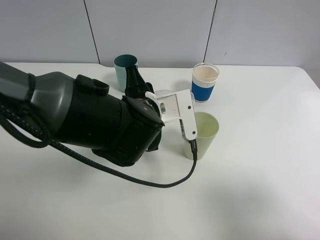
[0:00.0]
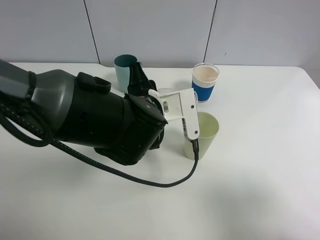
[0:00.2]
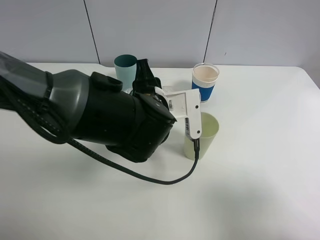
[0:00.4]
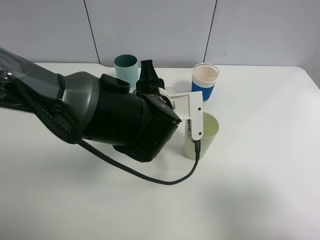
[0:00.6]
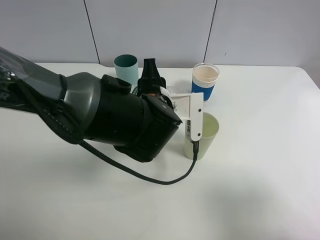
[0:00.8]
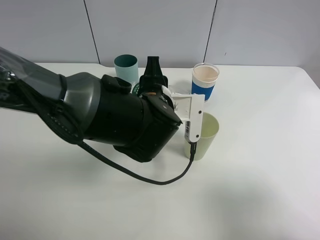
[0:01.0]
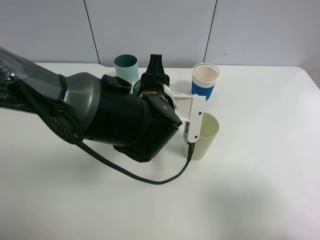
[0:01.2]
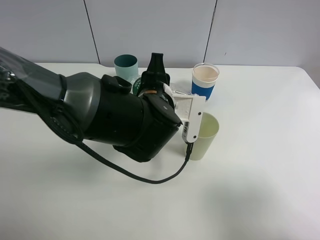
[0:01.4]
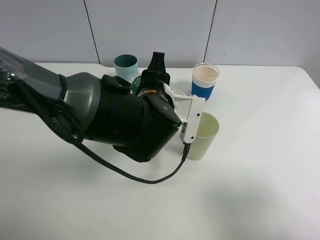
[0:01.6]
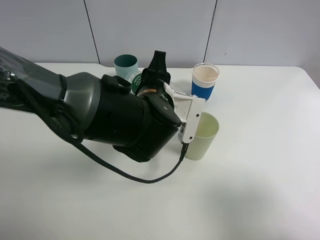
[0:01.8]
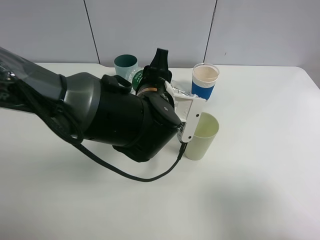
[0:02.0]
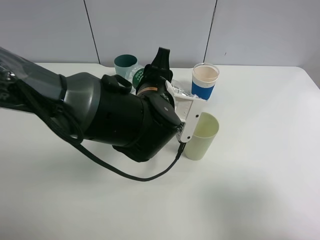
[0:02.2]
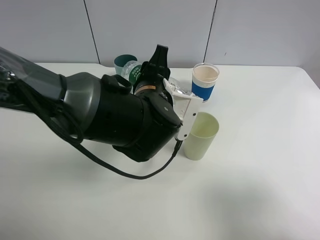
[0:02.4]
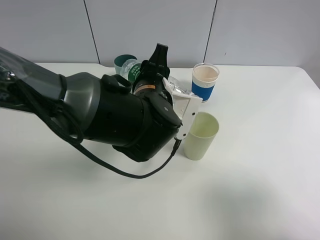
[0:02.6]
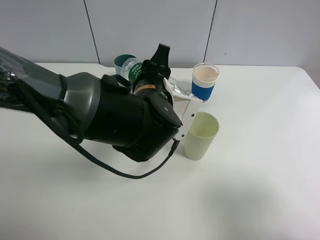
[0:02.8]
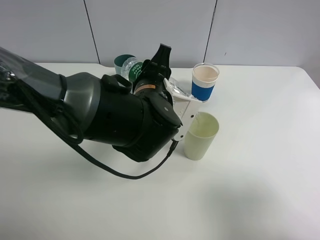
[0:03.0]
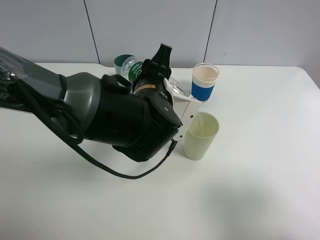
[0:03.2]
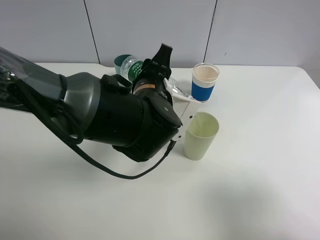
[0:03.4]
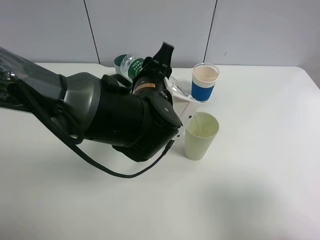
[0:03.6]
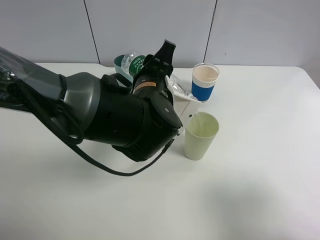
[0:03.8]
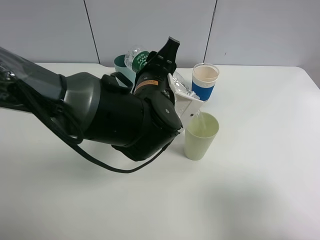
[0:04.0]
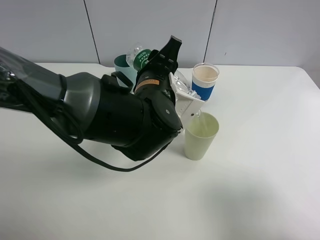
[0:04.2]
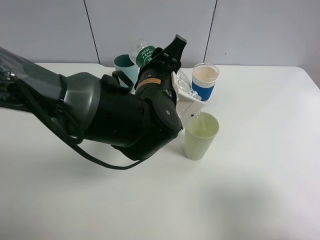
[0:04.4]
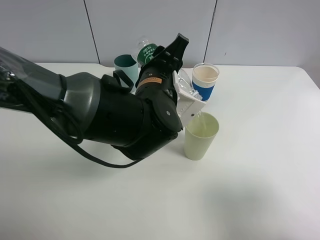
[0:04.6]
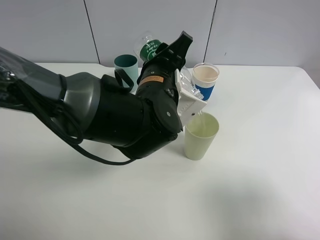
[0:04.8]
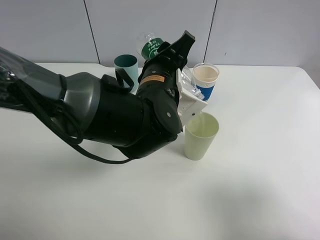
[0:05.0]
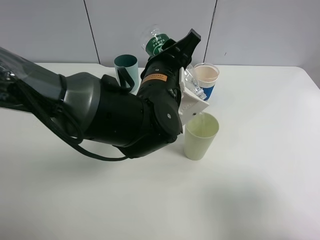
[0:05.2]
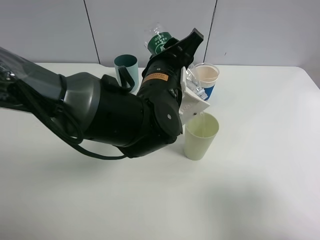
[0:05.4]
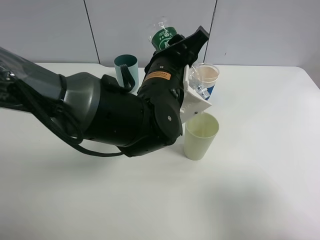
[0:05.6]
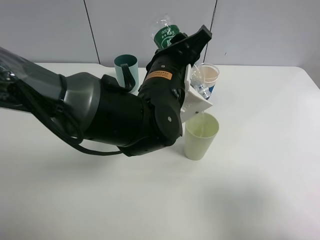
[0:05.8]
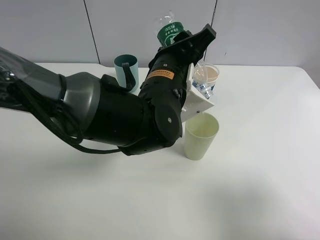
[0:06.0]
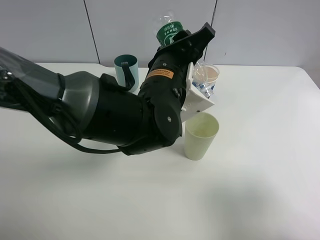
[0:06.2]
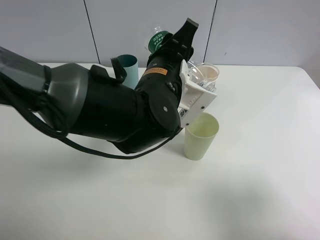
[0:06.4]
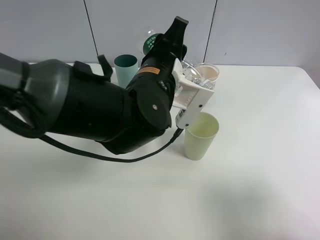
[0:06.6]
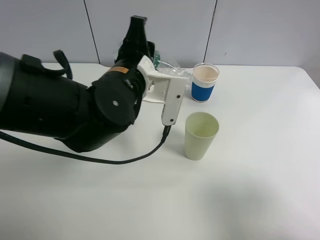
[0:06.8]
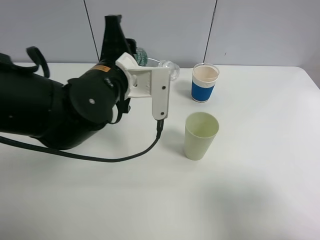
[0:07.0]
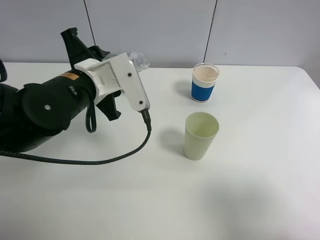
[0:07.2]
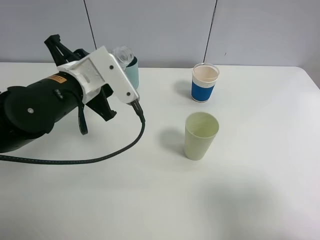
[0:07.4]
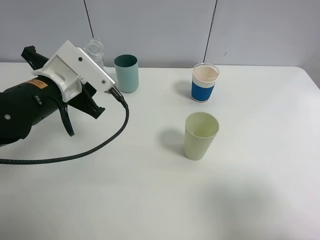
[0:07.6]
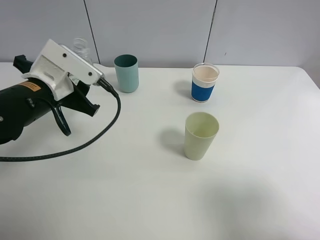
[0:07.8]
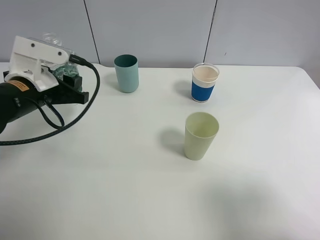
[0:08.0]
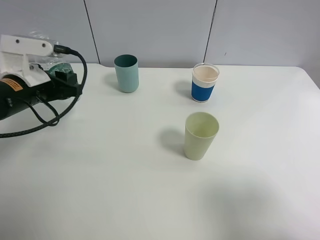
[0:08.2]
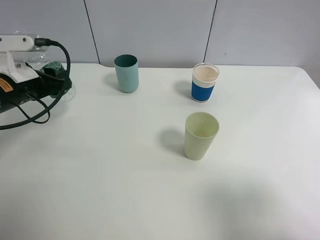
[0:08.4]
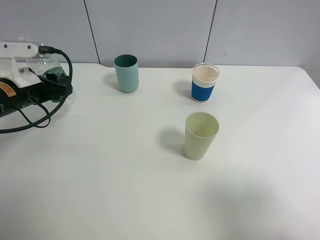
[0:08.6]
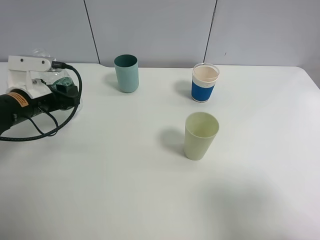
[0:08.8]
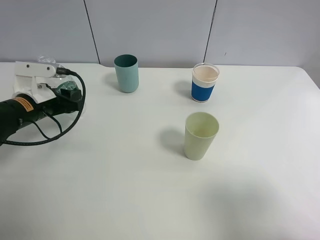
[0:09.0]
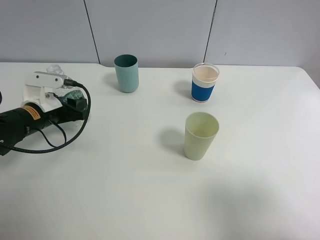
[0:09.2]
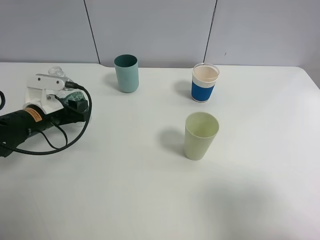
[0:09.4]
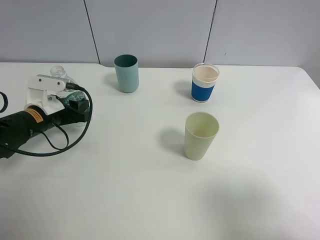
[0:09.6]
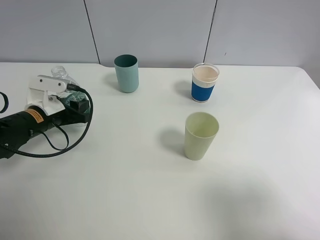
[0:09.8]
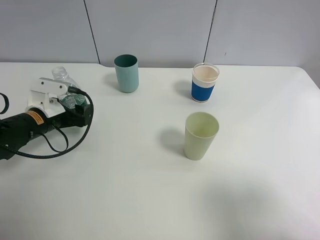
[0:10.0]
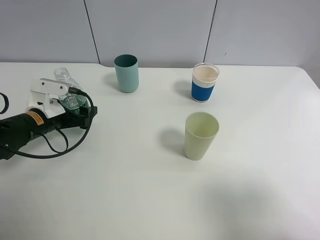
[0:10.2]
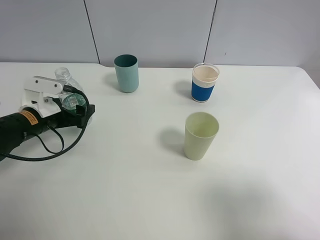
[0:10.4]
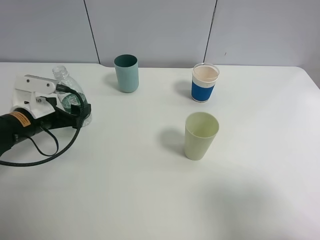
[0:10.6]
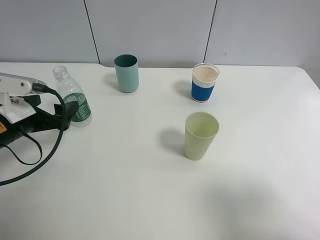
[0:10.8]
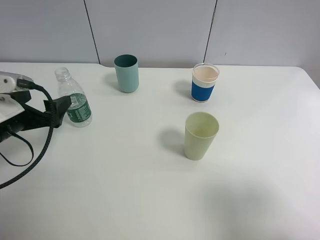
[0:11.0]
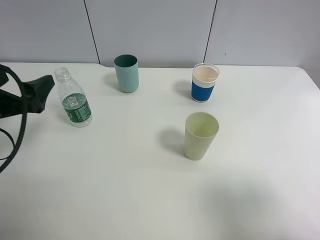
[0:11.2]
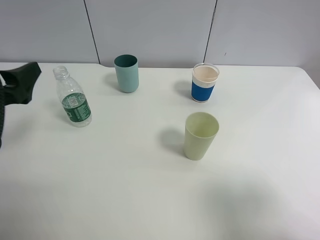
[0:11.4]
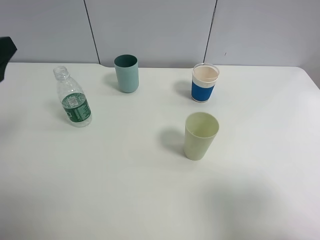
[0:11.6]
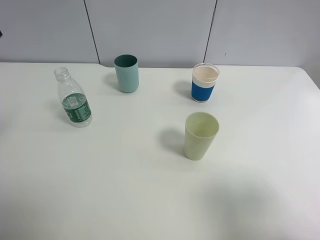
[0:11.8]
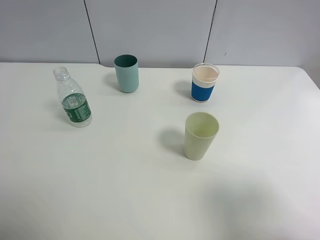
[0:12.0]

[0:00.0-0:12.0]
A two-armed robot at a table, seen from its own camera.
Task of the whole recording: use a clamp to hold the bottle of the drink, pour the beverage into a random cup, then clamp the cup containing the drink and pour the drink into another random cup.
Step, 0:00.0 to 0:06.8: Pour the water into the green plastic cup with left gripper.
Step, 0:07.0 to 0:10.8: Place the water bottle on the table with left gripper.
0:01.6 to 0:03.0: The grippers make only small movements.
0:03.0 to 0:04.4: There are only small adjustments of the grippers.
0:04.4 to 0:06.0: The grippers make only small movements.
0:06.0 to 0:07.6: The left gripper shifts roughly 20 cm to the left.
0:07.6 to 0:09.0: The left gripper travels to the left and downward by some 10 cm.
0:09.0 to 0:10.4: The left gripper opens.
0:10.4 to 0:12.0: The left gripper goes roughly 30 cm upward and backward.

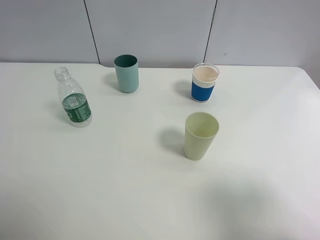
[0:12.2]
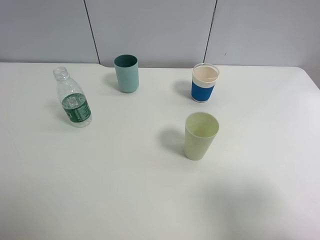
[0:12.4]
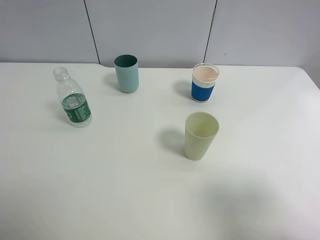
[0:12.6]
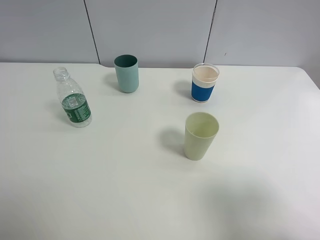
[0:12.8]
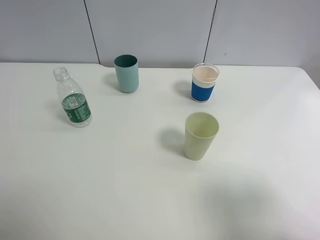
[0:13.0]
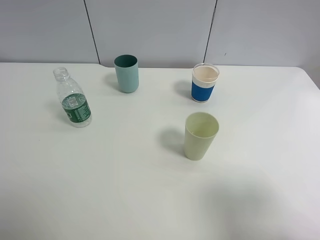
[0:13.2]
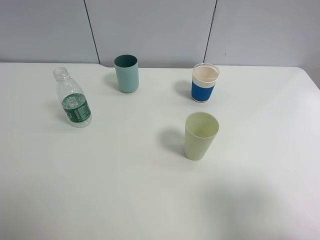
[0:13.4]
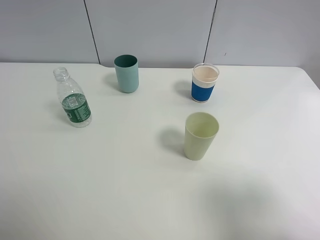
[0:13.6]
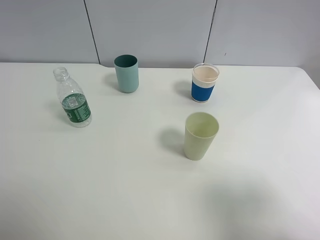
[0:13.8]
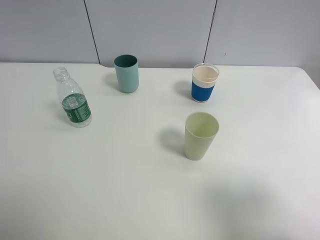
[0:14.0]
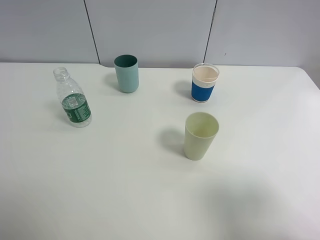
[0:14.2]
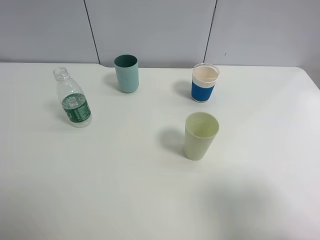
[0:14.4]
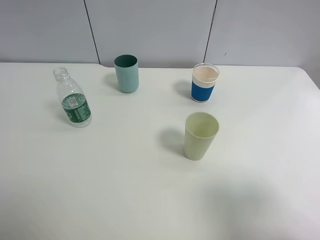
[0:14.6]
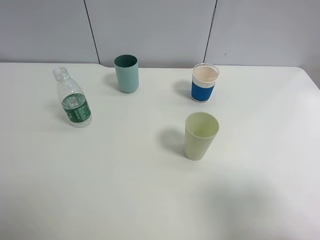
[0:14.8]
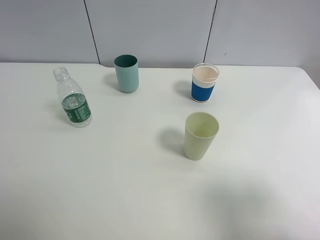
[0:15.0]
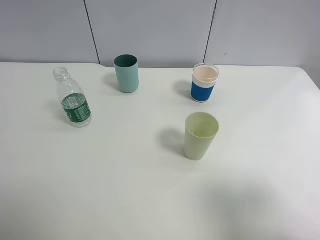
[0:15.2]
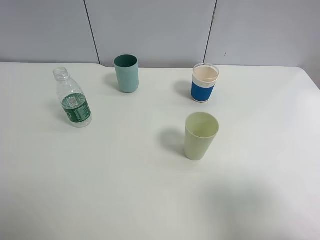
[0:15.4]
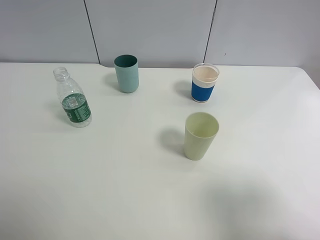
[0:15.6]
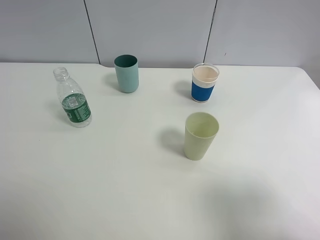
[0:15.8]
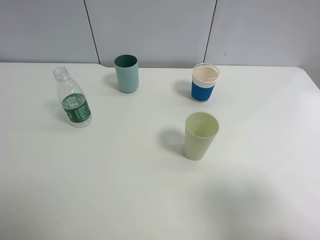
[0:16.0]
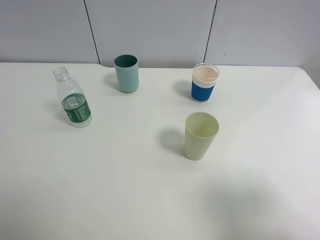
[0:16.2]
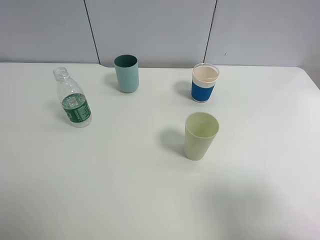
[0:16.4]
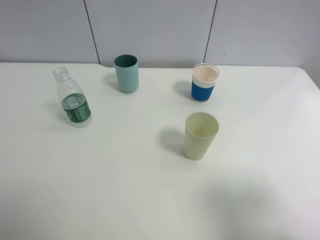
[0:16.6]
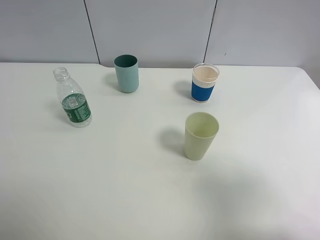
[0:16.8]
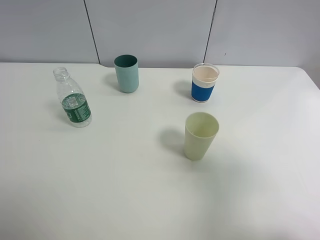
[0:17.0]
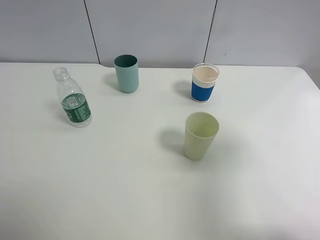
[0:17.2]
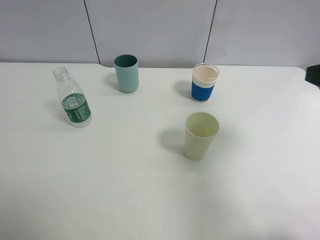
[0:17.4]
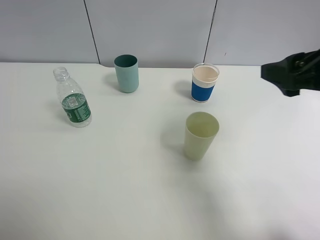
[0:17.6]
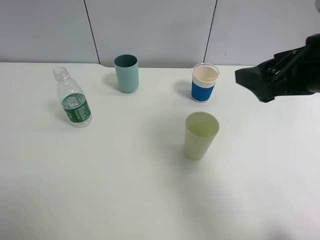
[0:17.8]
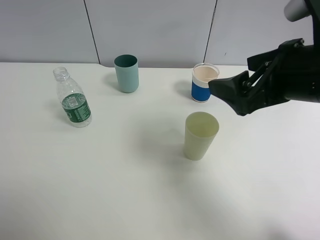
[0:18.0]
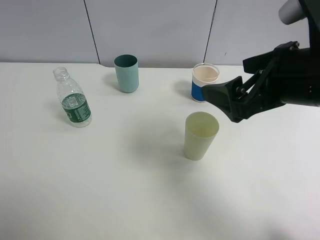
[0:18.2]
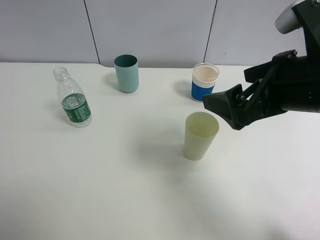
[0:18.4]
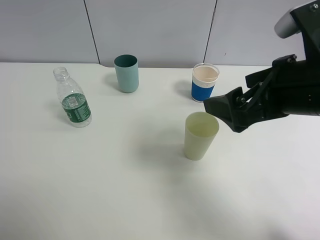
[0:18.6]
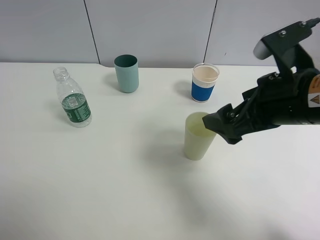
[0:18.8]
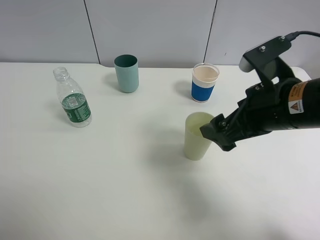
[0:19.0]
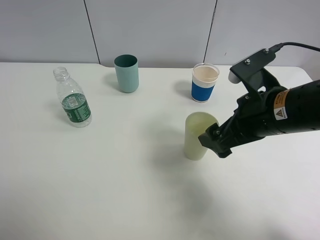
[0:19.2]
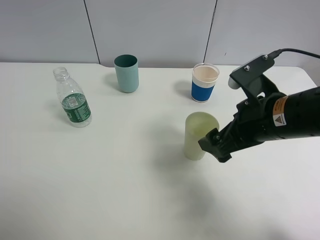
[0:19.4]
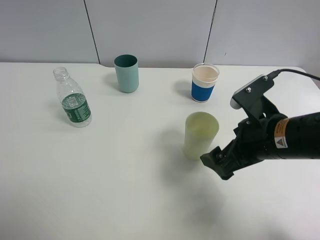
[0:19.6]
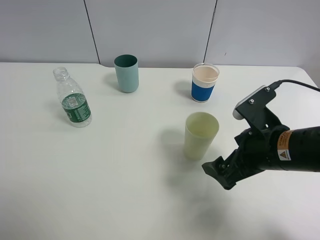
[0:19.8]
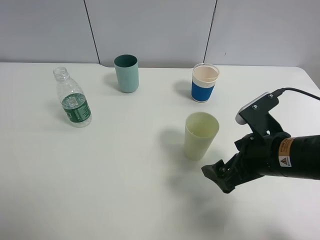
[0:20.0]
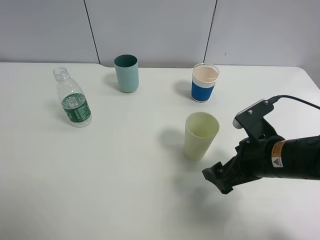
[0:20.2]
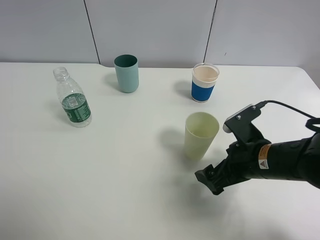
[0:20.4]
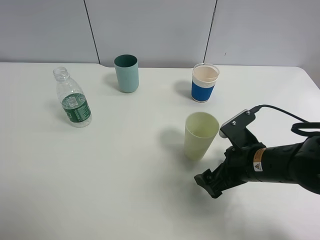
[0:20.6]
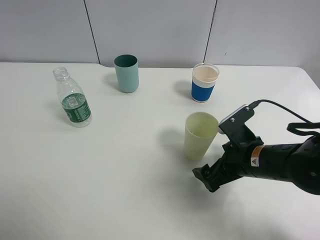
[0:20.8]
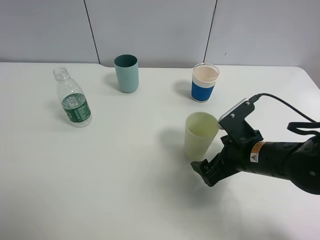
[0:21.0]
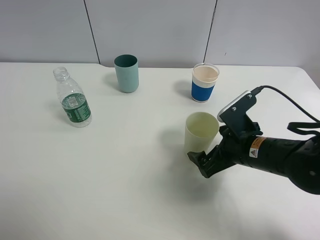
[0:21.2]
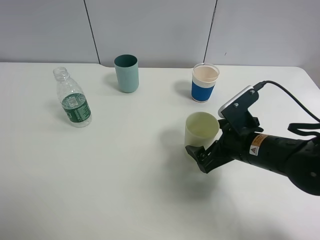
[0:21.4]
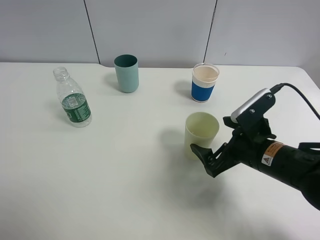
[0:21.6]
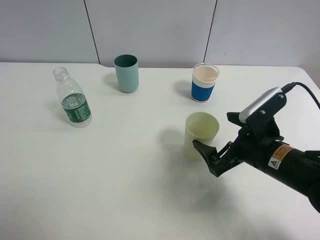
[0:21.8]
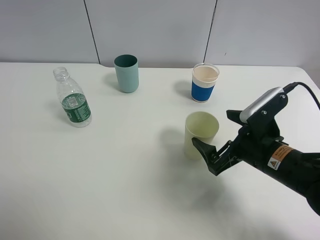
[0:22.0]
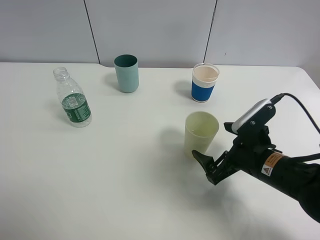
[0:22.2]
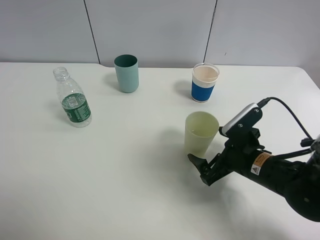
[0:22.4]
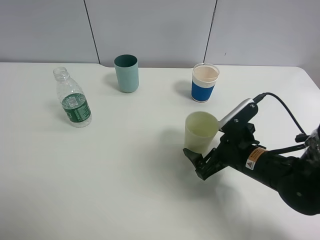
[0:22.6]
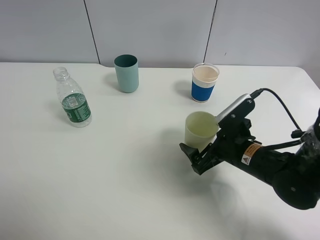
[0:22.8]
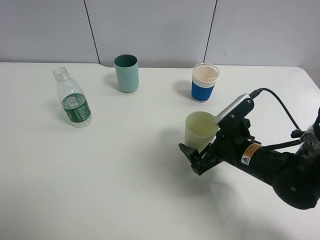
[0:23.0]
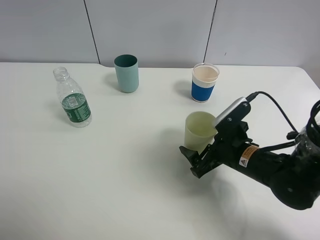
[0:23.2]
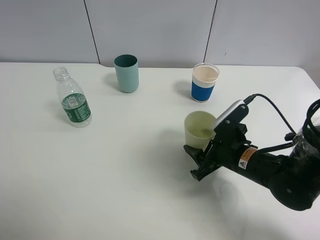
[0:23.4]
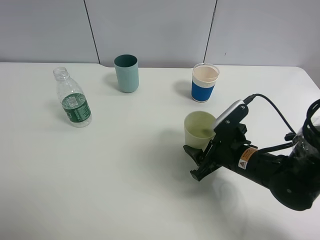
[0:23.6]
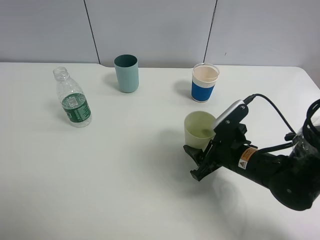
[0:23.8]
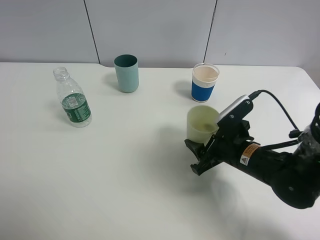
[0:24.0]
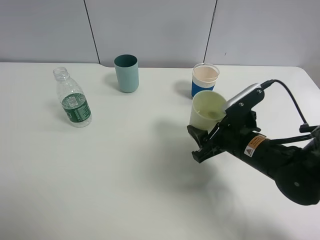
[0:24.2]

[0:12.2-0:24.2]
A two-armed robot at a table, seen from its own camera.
Task of the whole recording: use a clamp to hold the bottle of the drink, pour the beverage into a random cup, then clamp the cup containing the drink and pour the drink into another random cup.
0:13.8 to 0:16.6: The two grippers keep their place.
0:16.6 to 0:18.2: The right gripper is displaced forward and to the left by approximately 20 cm, and opens.
0:18.2 to 0:19.8: The right gripper travels downward by roughly 10 cm.
0:19.8 to 0:21.2: The right gripper moves some 5 cm.
0:21.2 to 0:22.6: The grippers make only small movements.
0:22.6 to 0:24.2: The right gripper closes up.
